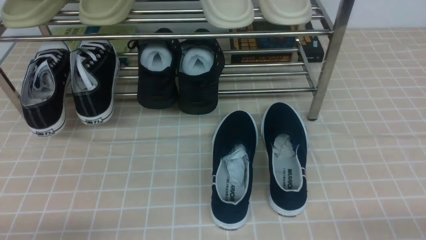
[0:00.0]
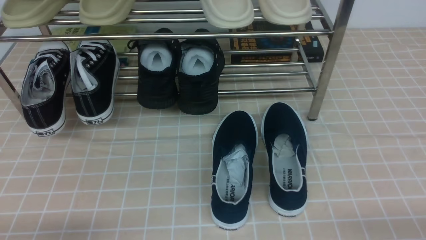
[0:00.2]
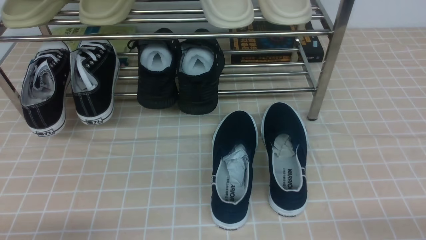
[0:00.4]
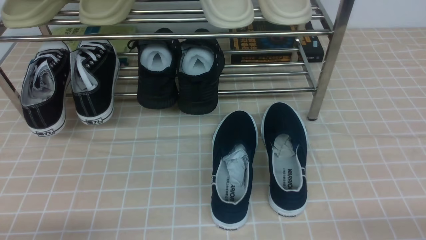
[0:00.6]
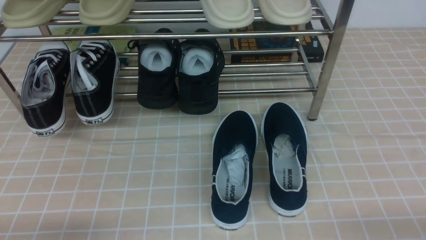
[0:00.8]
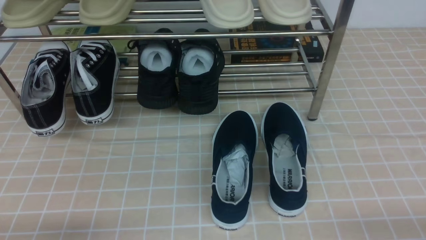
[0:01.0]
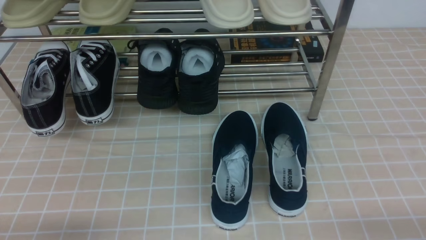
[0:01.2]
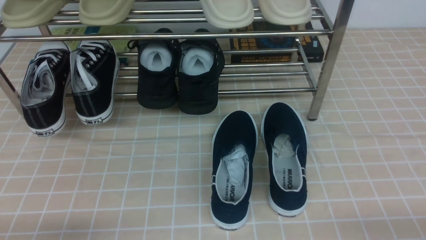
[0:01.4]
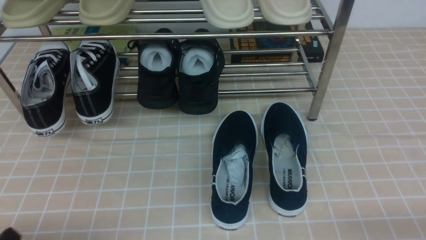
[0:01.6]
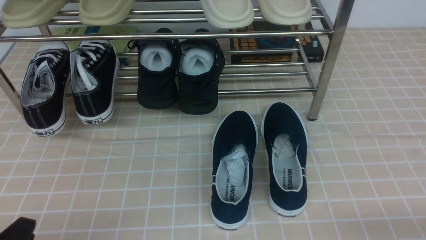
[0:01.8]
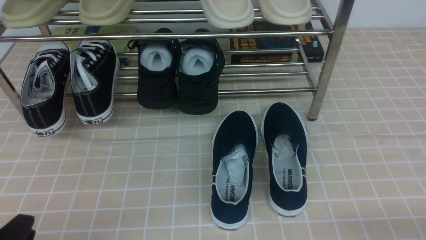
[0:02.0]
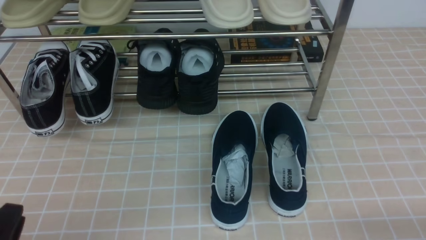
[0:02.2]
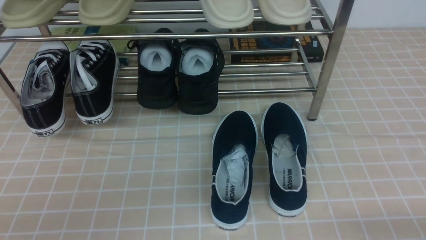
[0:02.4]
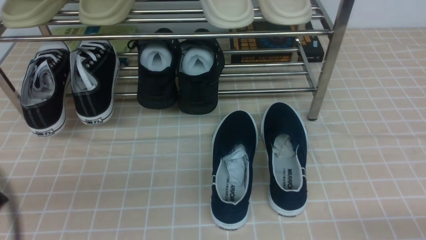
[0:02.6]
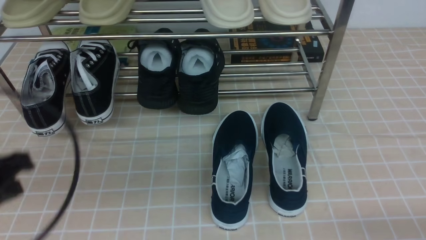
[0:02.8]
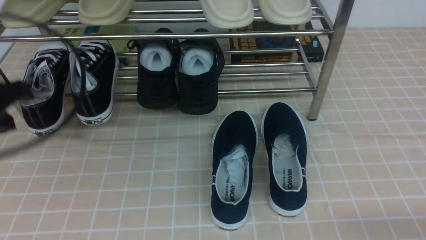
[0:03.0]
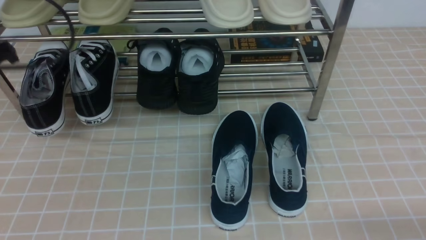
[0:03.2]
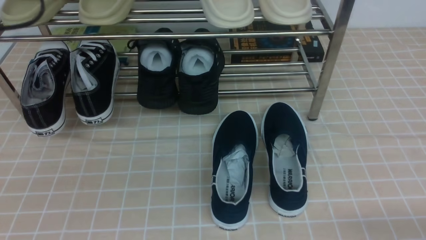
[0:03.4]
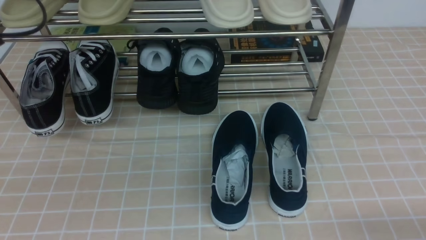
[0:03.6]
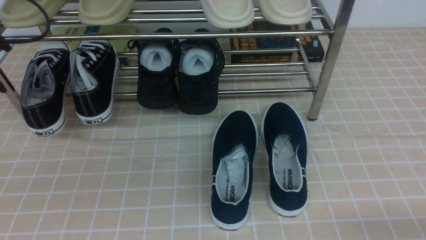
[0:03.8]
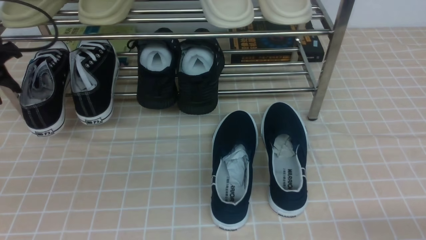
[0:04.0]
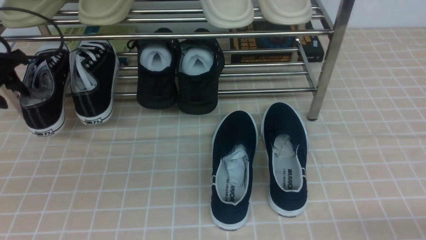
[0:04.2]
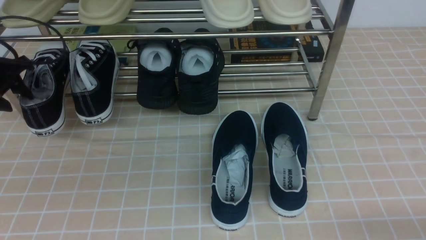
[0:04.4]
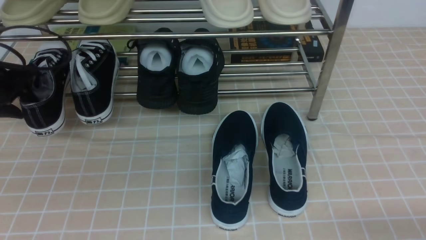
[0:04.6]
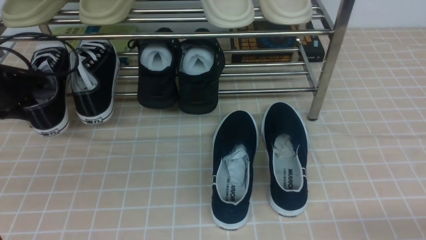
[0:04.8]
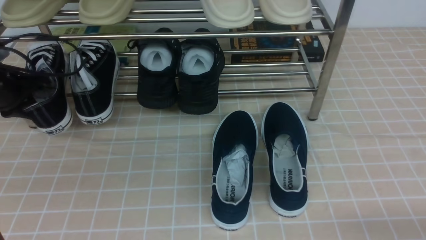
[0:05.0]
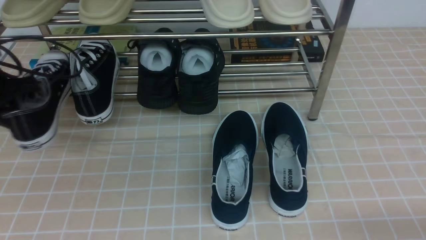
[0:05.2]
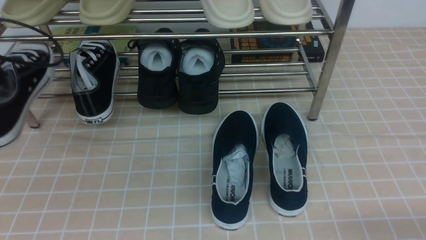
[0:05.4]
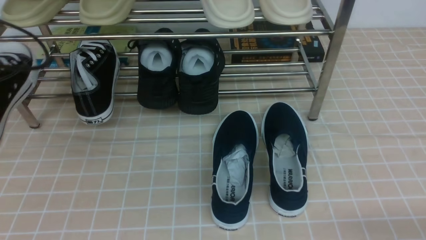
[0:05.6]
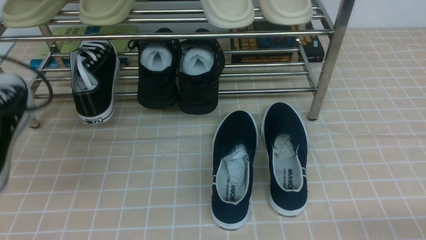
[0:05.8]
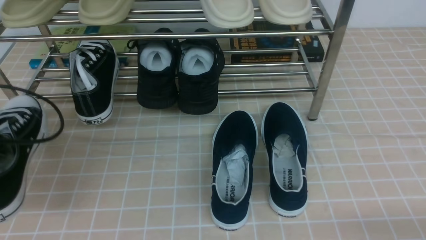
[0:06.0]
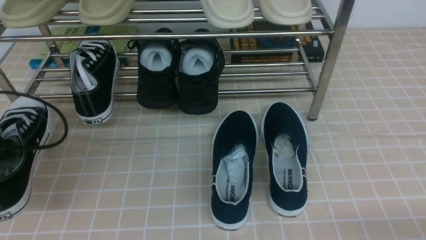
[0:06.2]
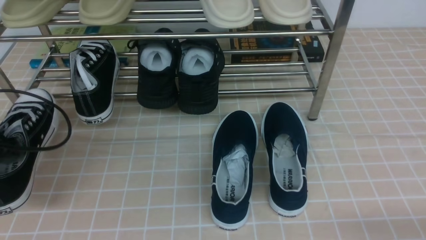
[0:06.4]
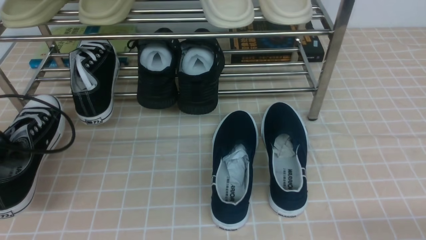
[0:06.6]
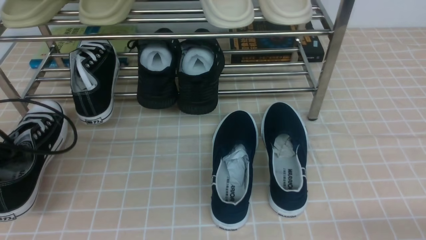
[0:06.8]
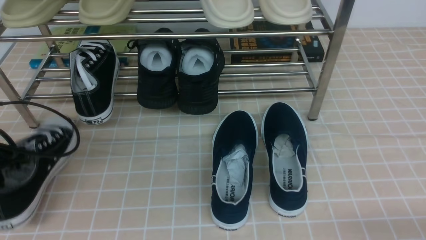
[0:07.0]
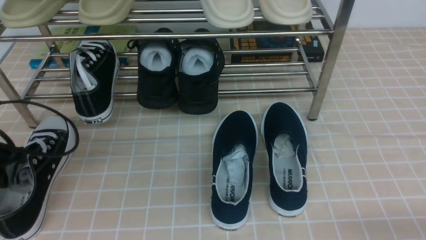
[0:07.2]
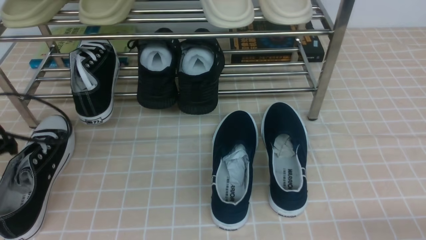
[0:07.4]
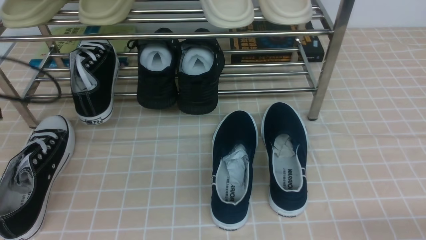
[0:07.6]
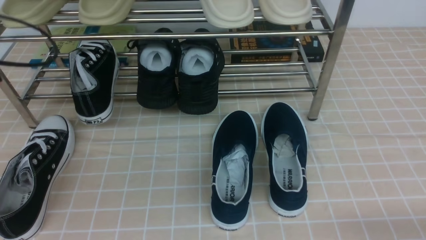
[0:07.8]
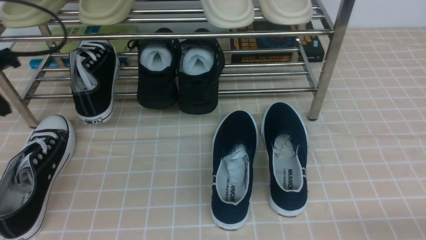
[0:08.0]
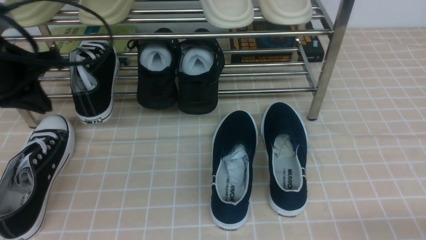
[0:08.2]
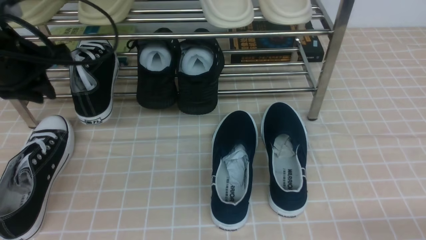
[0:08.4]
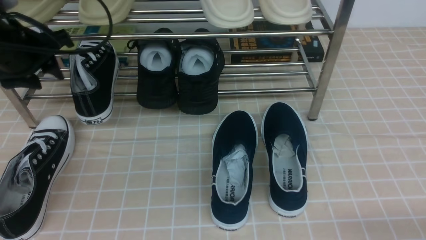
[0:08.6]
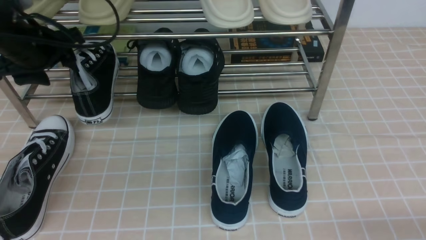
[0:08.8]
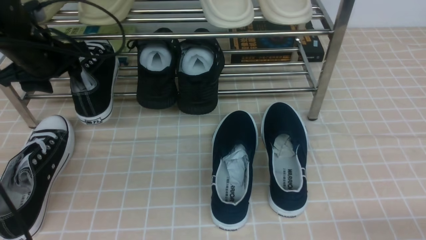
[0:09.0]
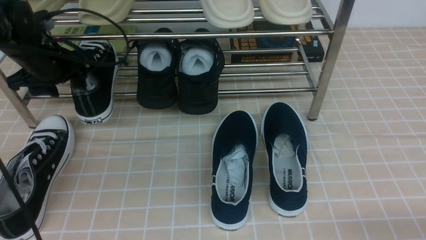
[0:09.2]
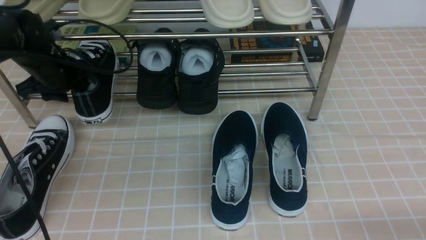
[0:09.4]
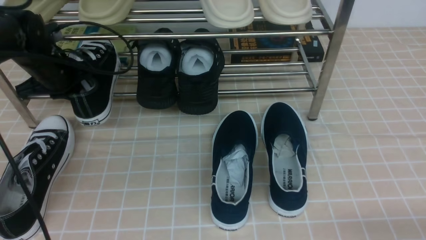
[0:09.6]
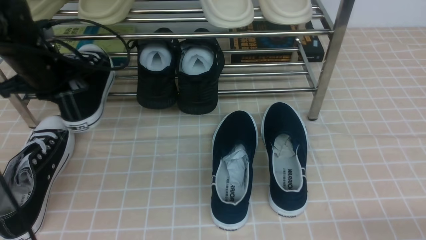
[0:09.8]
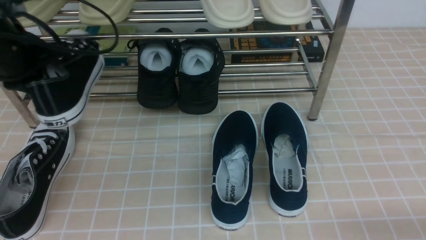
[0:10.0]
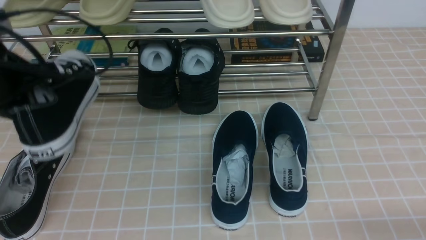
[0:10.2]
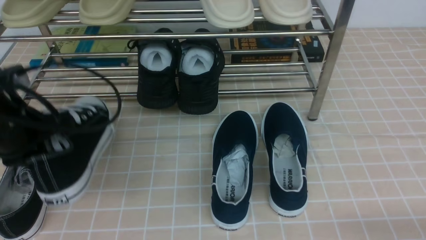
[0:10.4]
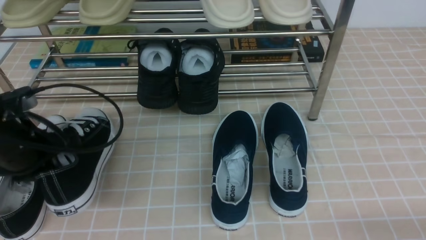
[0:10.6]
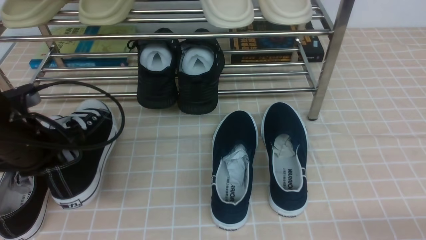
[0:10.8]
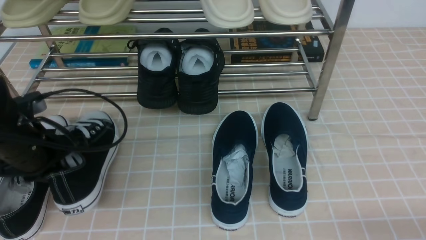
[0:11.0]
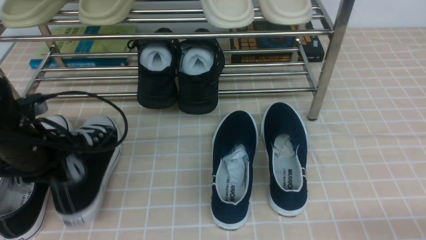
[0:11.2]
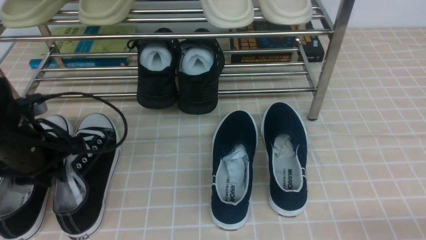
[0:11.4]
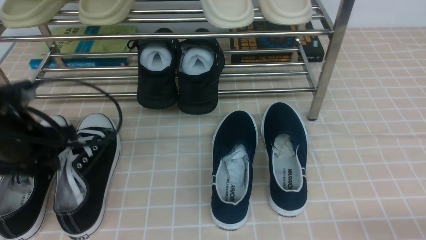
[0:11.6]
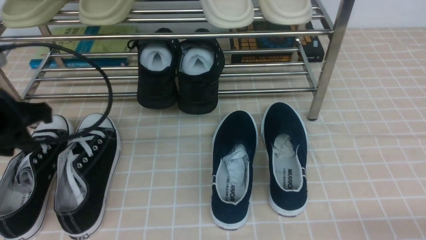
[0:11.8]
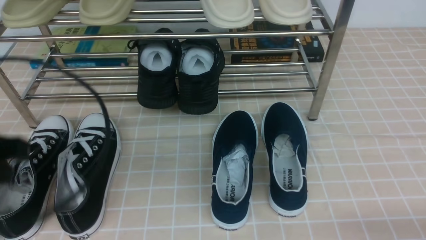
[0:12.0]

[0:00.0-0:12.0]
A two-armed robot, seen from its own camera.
Step, 0:00.0 to 0:04.6: use the left arm to clamp a shoe on the left side of the shoe rack.
Step, 0:05.0 to 0:07.4: Use your left arm to remove the clamped shoe from the shoe rack and put it down.
Step, 0:07.6 to 0:09.4: use the left arm to clamp a shoe on the left side of the shoe rack.
Step, 0:09.6 to 0:11.6: Use your left arm to remove the clamped shoe from the shoe rack and put it down.
0:01.6 to 0:03.0: The left gripper heads upward and forward, covering some 25 cm, and closes up.
0:03.0 to 0:04.4: The left gripper moves forward, downward and to the left, roughly 25 cm, and opens its fingers.
0:04.4 to 0:06.0: The left gripper shifts some 15 cm backward, and closes.
0:06.0 to 0:07.6: The left gripper goes downward and returns, about 5 cm each way.
0:07.6 to 0:09.0: The left gripper shifts roughly 15 cm forward and to the right, and opens.
0:09.0 to 0:10.4: The left gripper is displaced backward by roughly 15 cm, and closes up.
0:10.4 to 0:12.0: The left gripper travels backward and upward by about 15 cm, and opens, then closes once more.

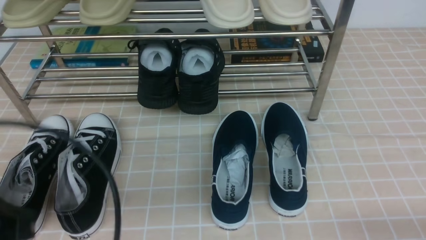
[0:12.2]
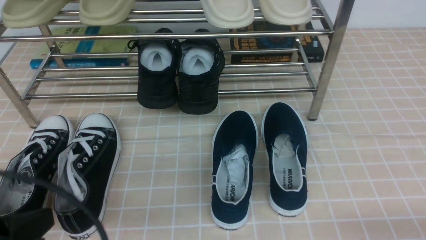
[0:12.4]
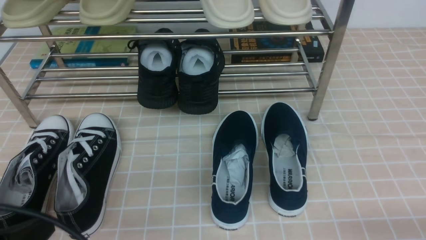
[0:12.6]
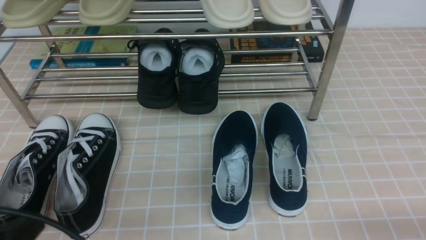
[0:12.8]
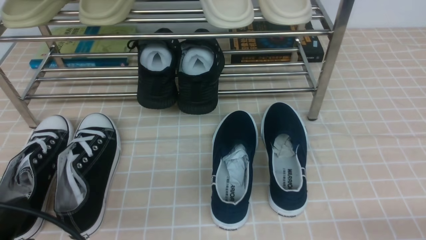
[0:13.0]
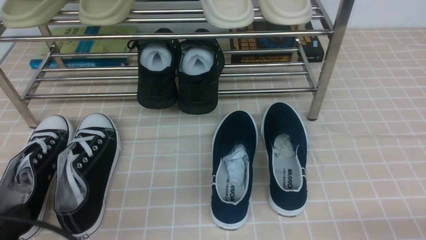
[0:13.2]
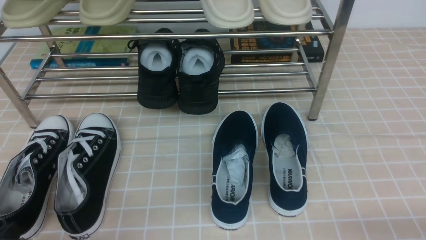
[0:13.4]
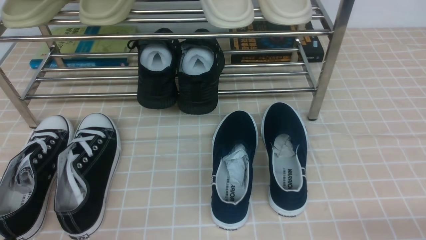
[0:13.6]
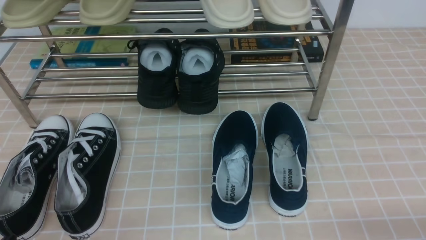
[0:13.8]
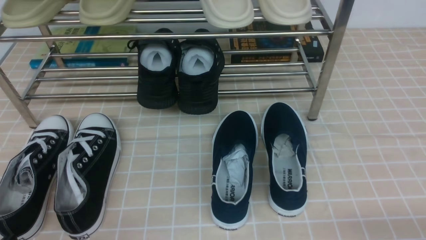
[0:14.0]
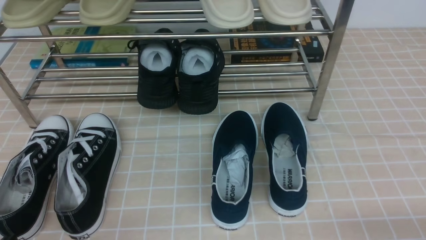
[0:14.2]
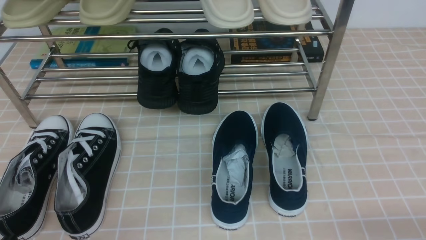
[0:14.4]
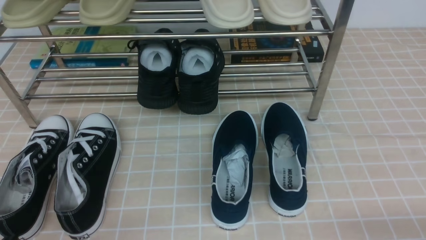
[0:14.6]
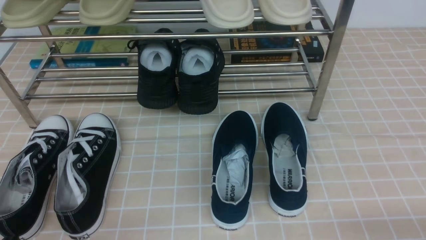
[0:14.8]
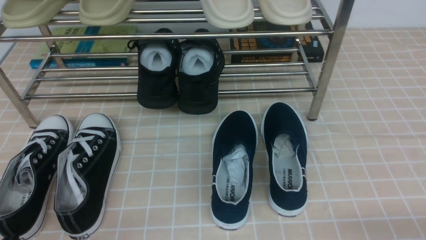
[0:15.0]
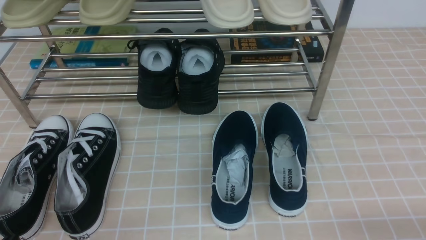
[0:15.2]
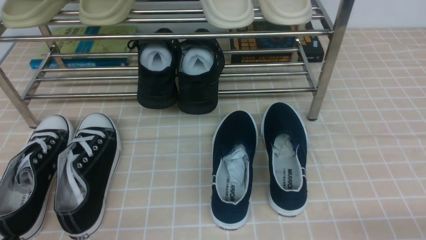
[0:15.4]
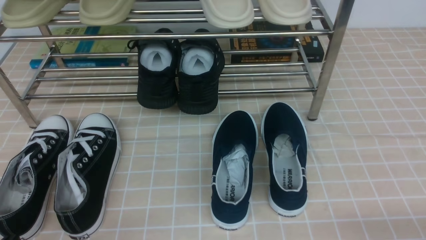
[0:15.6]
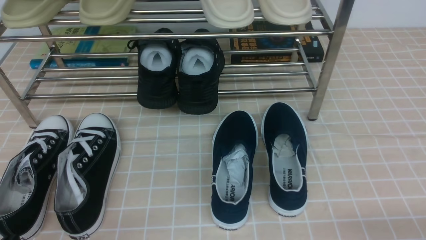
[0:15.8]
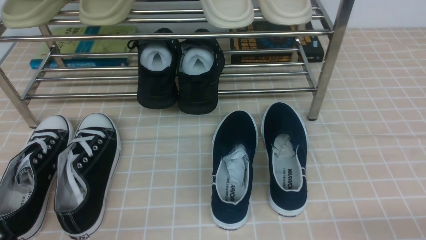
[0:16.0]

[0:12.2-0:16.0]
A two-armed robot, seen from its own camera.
0:12.2 to 0:13.4: The left gripper shifts roughly 10 cm downward.
0:14.8 to 0:16.0: Both grippers stay about where they are.
